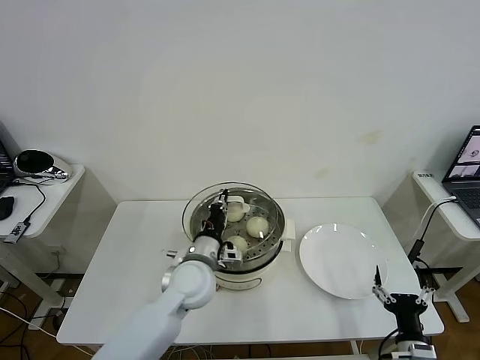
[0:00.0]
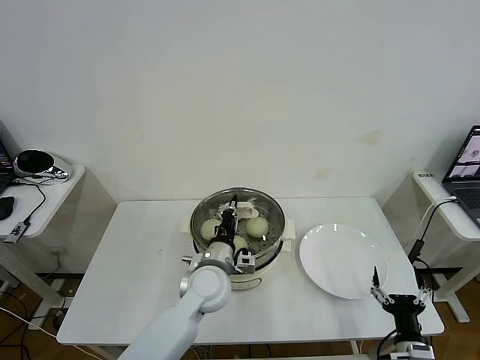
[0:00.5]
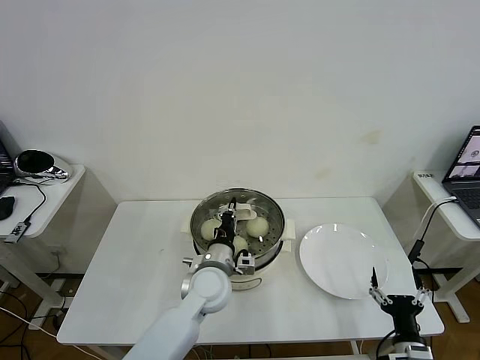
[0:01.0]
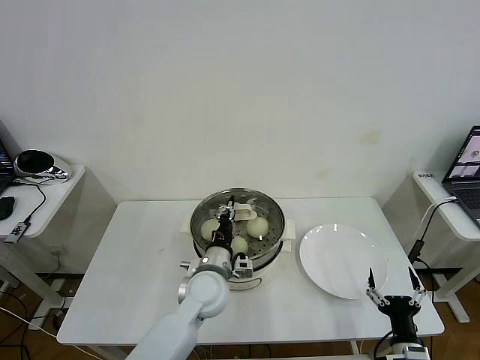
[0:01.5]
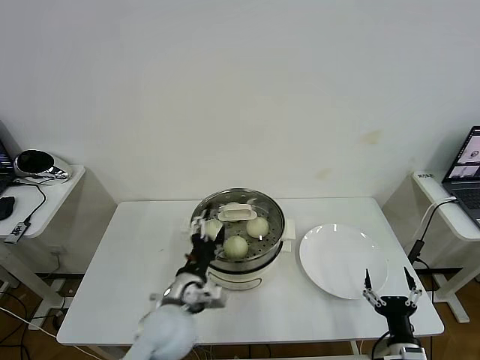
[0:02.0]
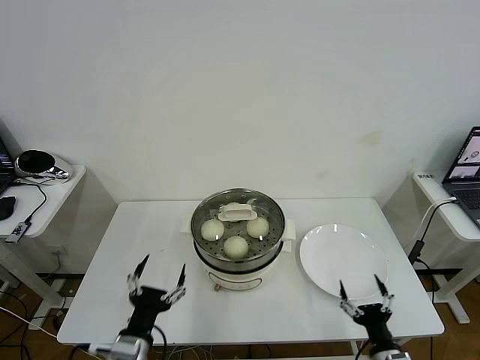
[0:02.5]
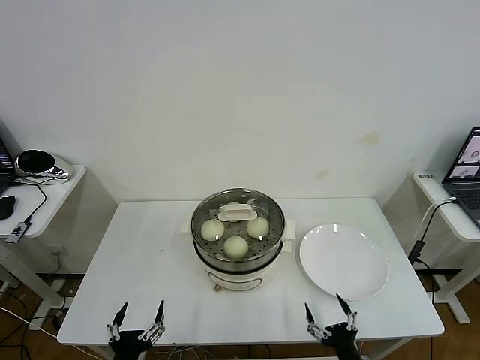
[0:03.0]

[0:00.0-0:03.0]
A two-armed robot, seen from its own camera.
Task of the whole recording: take steamed baozi put them in steamer then cover it.
0:00.0 to 0:01.5: The left gripper moves roughly 5 cm.
0:01.5 to 0:03.0: The left gripper is displaced backward and to the left by approximately 30 cm, and opens its fingers; the right gripper heads to the left, covering approximately 5 cm.
